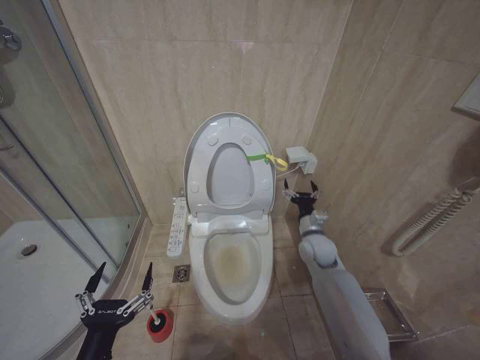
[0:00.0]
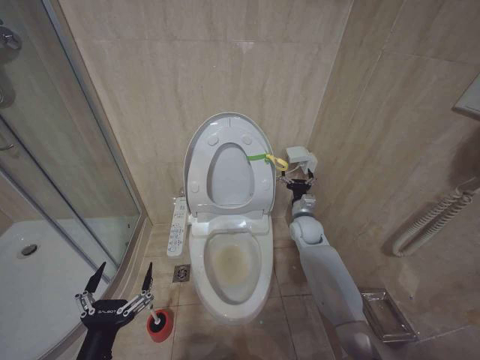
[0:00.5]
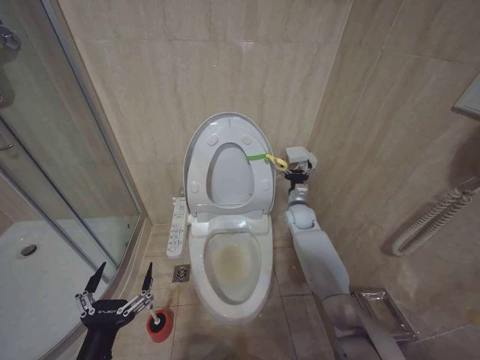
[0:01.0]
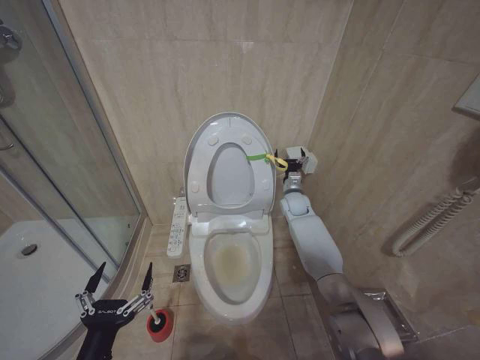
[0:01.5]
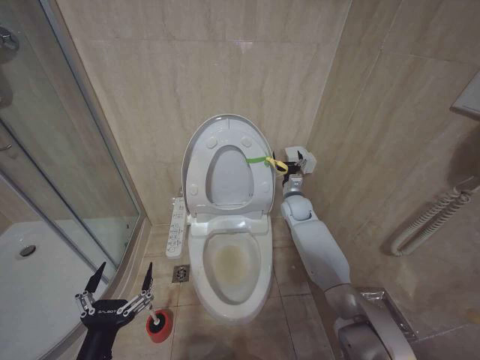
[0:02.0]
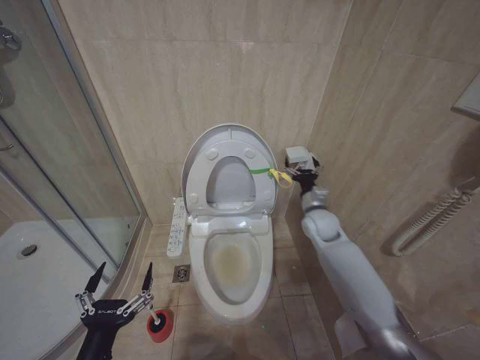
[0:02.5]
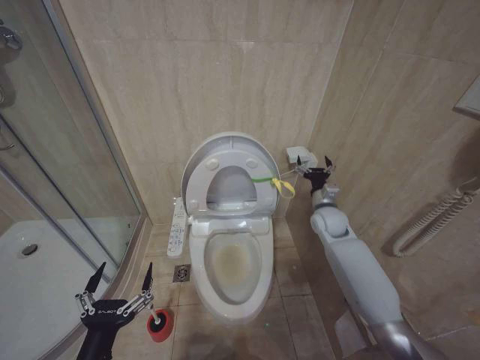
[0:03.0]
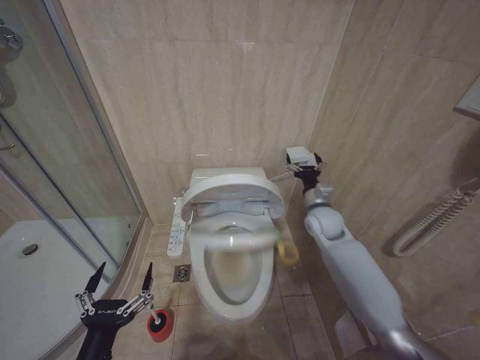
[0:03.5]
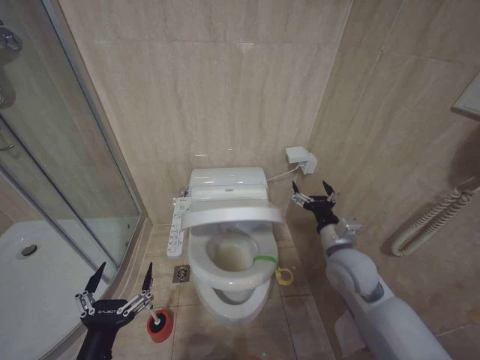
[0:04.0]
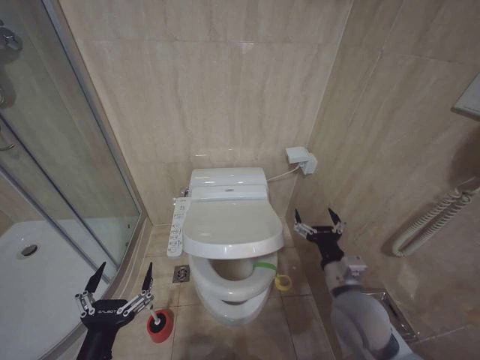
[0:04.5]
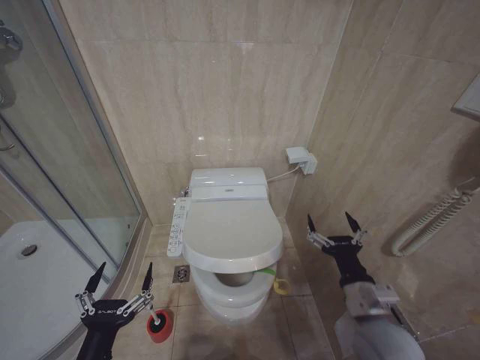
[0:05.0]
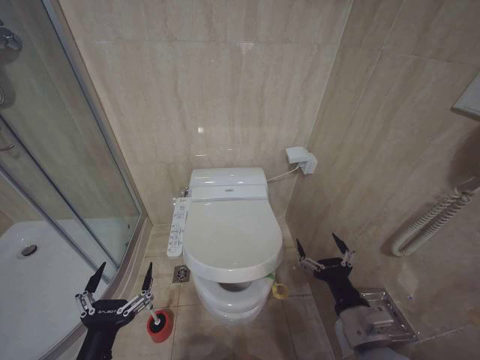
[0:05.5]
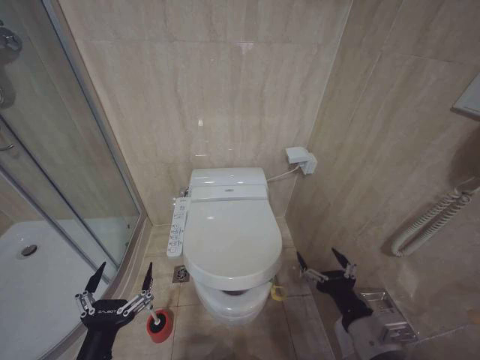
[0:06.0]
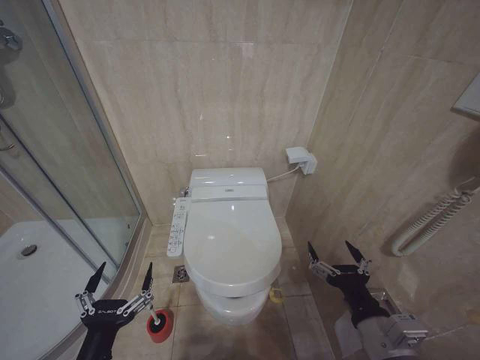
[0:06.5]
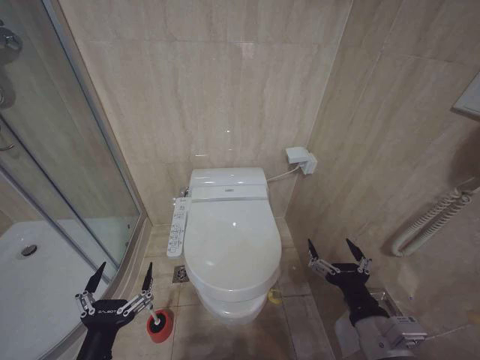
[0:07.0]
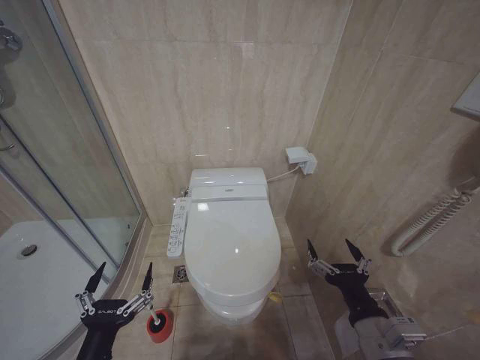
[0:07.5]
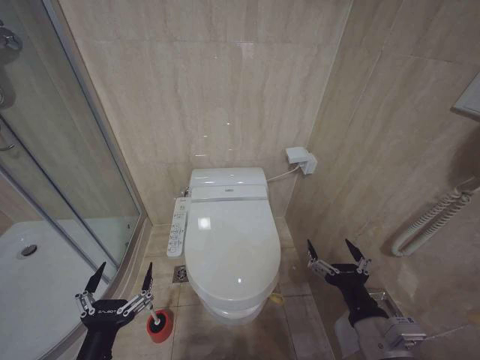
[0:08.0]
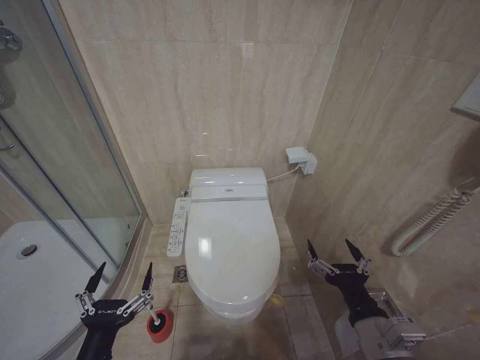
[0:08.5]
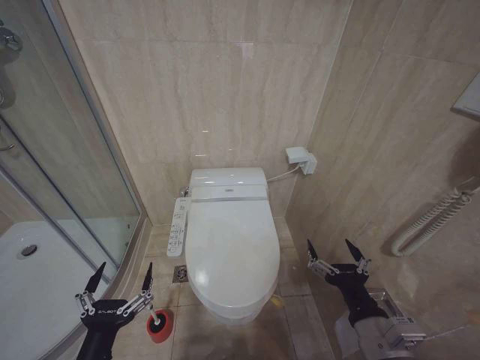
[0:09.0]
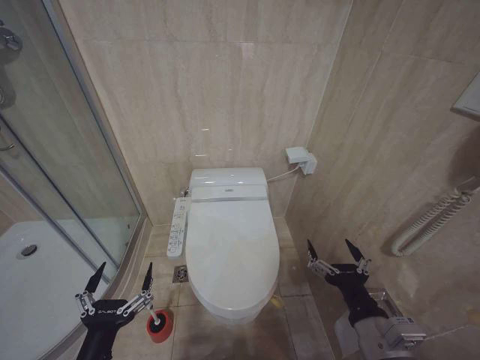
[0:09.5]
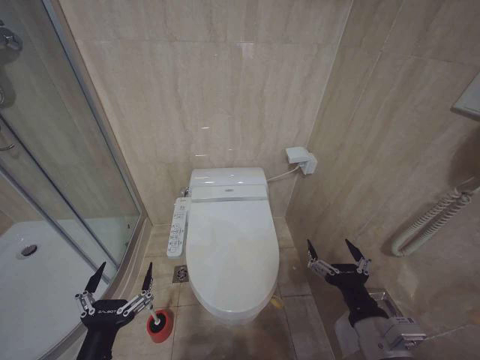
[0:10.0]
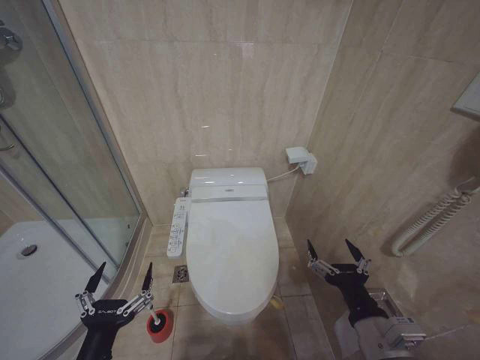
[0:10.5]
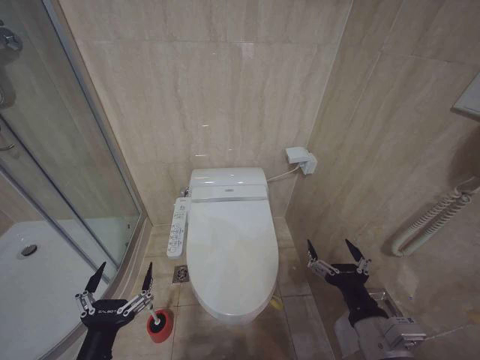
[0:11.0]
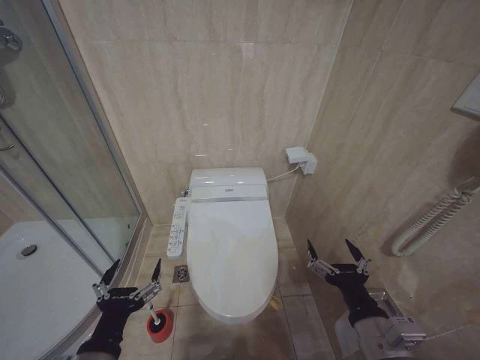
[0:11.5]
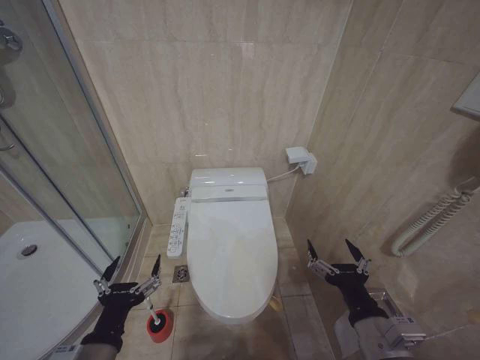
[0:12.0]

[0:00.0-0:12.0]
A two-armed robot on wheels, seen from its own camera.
Task of the whole recording: Open the toilet lid, clean the toilet bowl with a toilet brush, close the toilet lid, and flush.
0:00.0 to 0:02.0: The right gripper travels forward by roughly 15 cm.
0:02.0 to 0:04.0: The right gripper shifts roughly 25 cm backward.
0:04.0 to 0:06.0: The right gripper travels backward by about 20 cm.
0:06.0 to 0:08.0: The grippers stay close to where they were, moving slightly.
0:08.0 to 0:10.0: Both grippers stay put.
0:10.0 to 0:12.0: The grippers make only small movements.

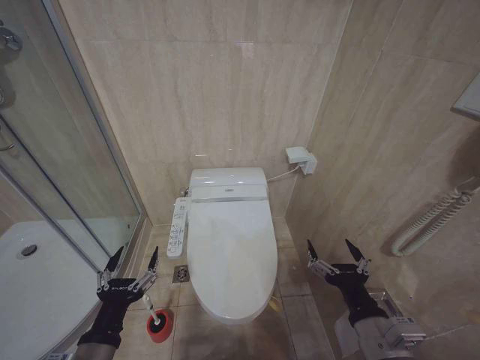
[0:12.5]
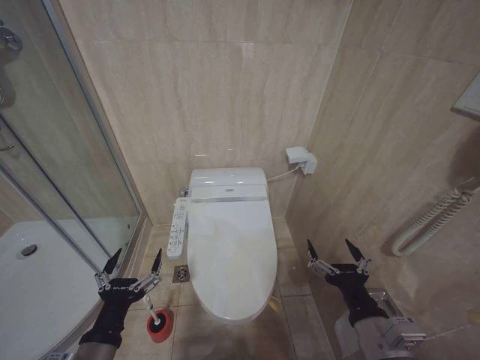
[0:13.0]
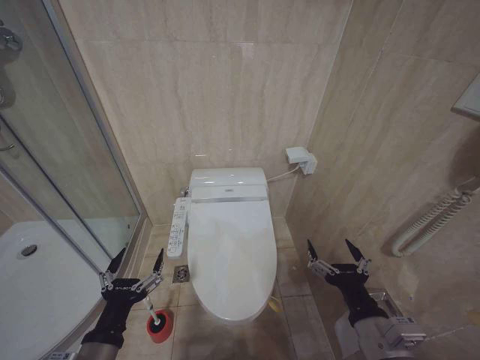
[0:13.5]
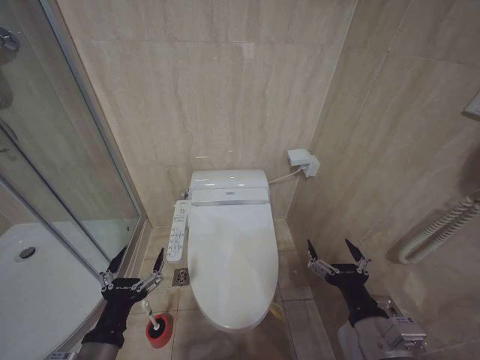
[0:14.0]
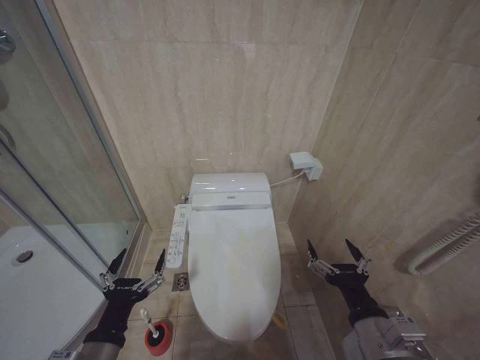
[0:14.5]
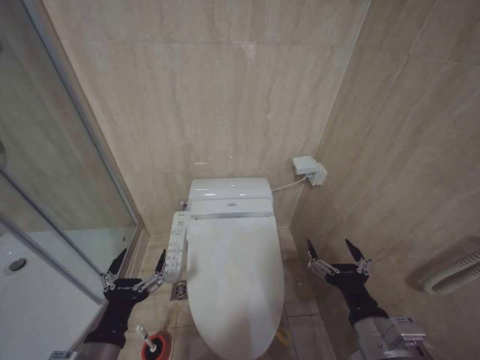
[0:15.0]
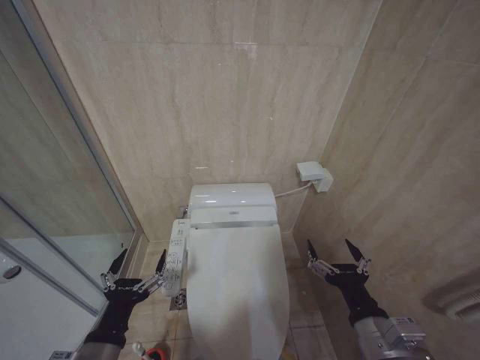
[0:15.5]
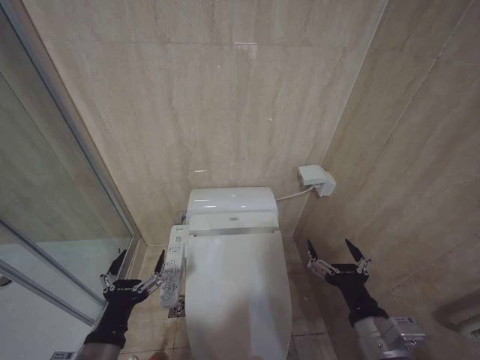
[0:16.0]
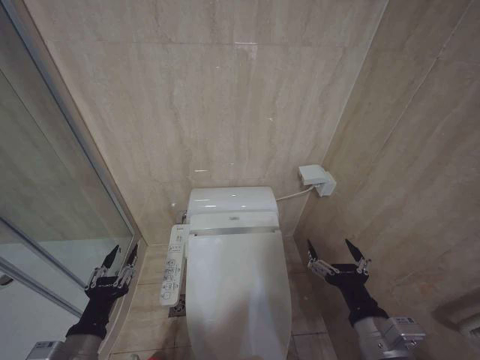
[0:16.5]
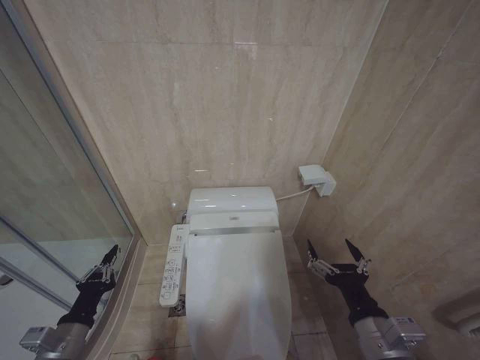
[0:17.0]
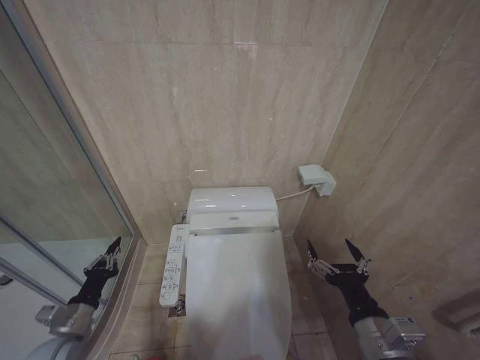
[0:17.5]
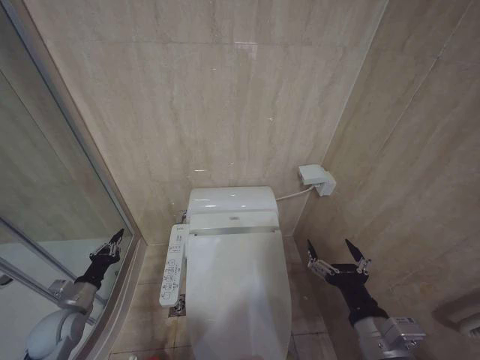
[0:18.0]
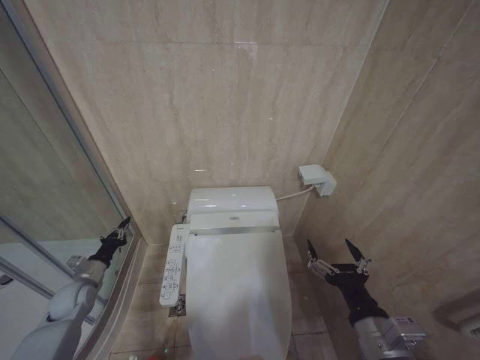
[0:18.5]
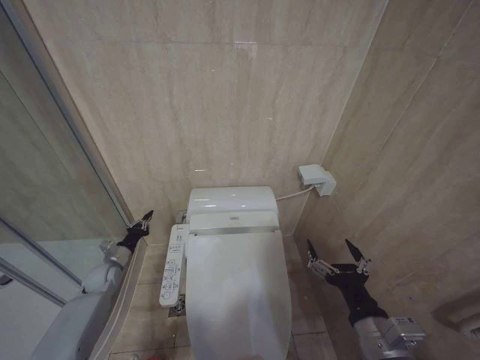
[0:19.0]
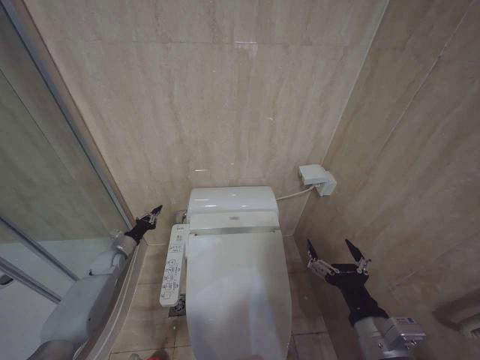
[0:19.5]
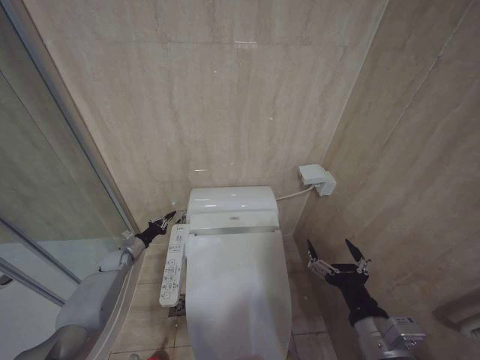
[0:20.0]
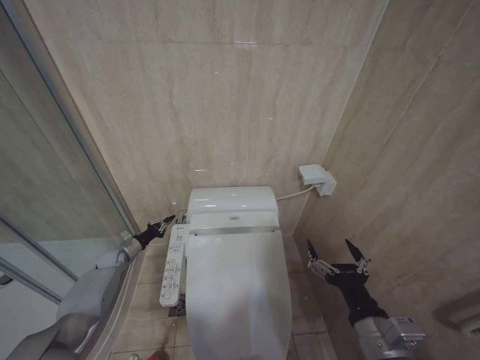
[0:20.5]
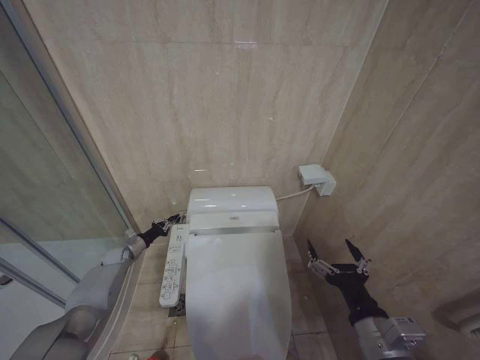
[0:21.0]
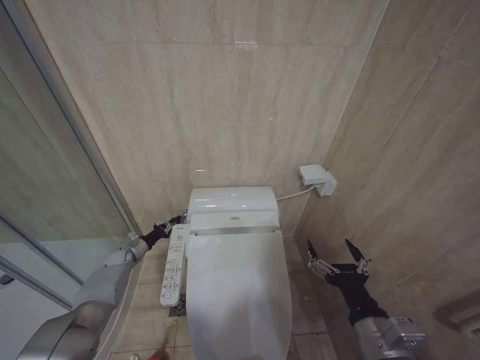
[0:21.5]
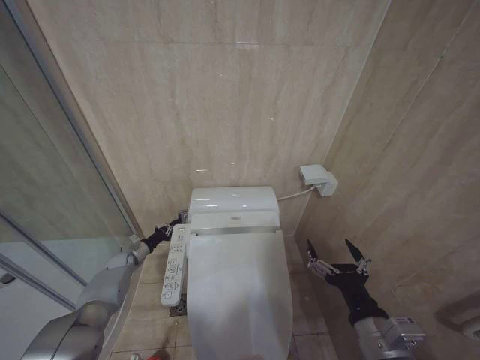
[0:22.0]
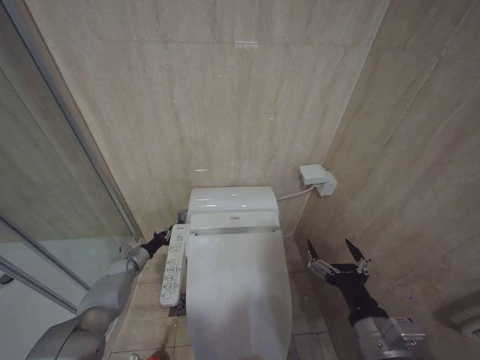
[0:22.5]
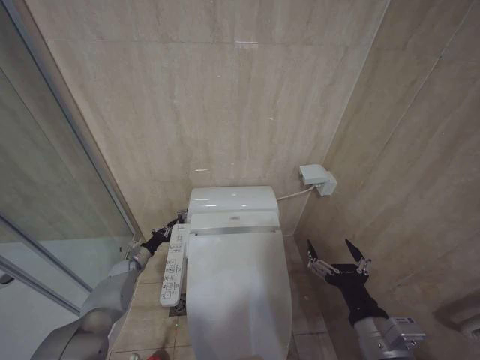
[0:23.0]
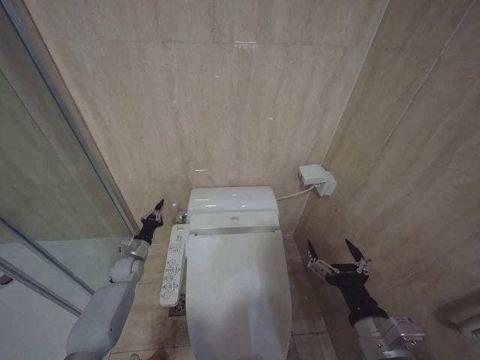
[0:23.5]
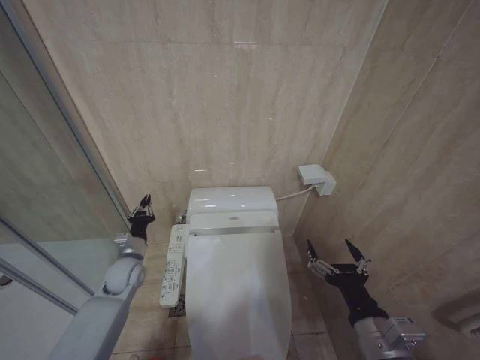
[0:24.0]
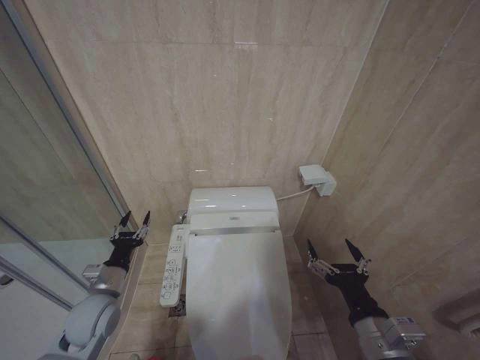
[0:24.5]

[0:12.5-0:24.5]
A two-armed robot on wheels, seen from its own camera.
Task of the whole recording: Open the toilet lid, clean the toilet bowl with a toilet brush, close the toilet lid, and flush.
0:12.5 to 0:14.5: Neither gripper changes place.
0:14.5 to 0:16.5: The left gripper moves about 5 cm.
0:16.5 to 0:18.5: The left gripper moves forward, to the left and downward, approximately 30 cm, and closes up.
0:18.5 to 0:20.5: The left gripper moves forward, roughly 15 cm.
0:20.5 to 0:22.5: The left gripper goes approximately 5 cm downward.
0:22.5 to 0:24.5: The left gripper shifts some 25 cm backward, upward and to the right, and opens its fingers.

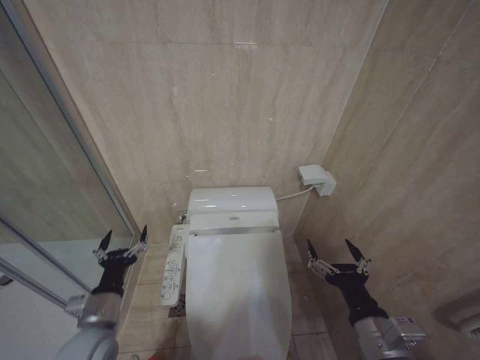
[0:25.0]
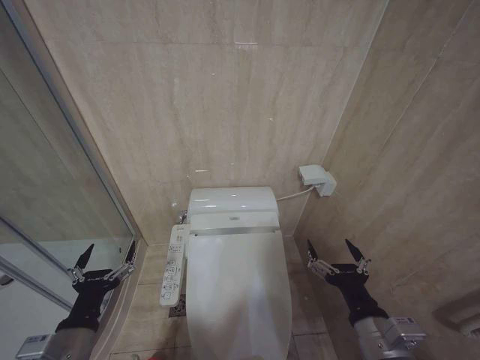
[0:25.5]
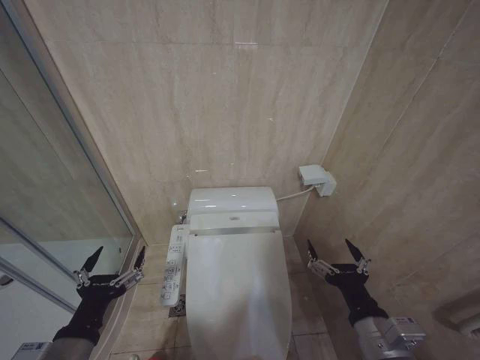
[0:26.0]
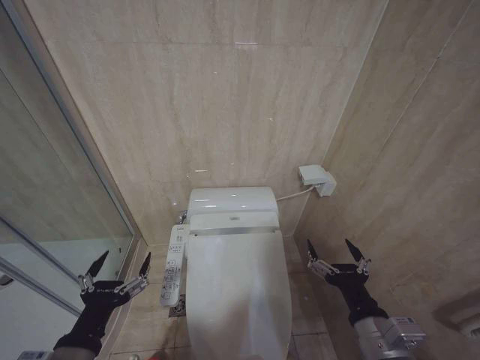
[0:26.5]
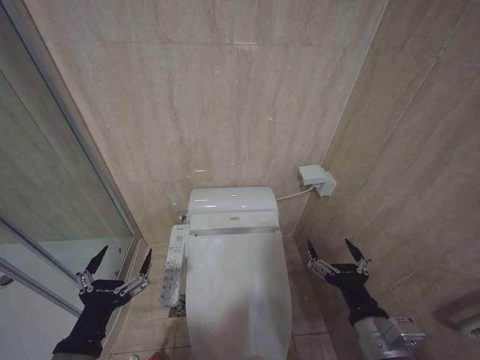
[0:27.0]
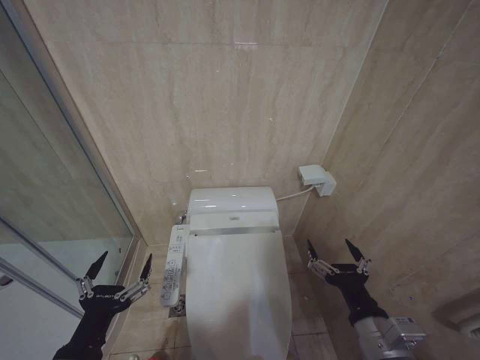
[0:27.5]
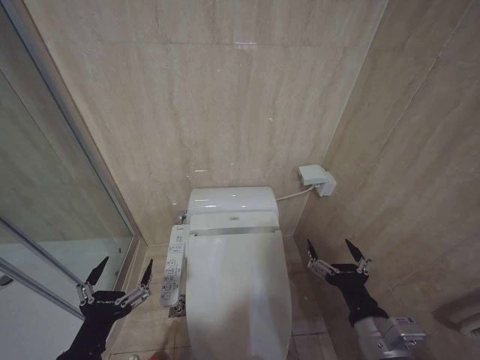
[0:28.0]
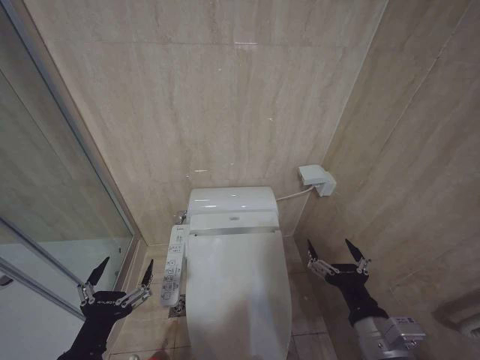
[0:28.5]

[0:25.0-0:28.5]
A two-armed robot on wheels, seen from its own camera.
Task of the whole recording: Open the toilet lid, clean the toilet bowl with a toilet brush, close the toilet lid, and flush.
0:25.0 to 0:27.0: The left gripper moves backward and upward, approximately 15 cm.
0:27.0 to 0:28.5: The grippers move only a little.
